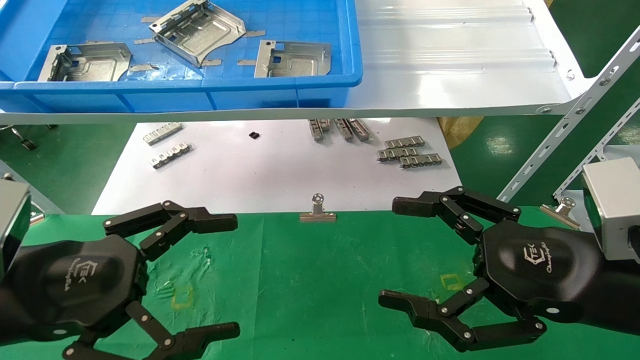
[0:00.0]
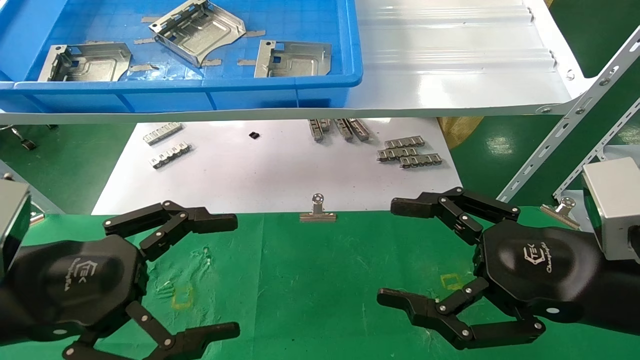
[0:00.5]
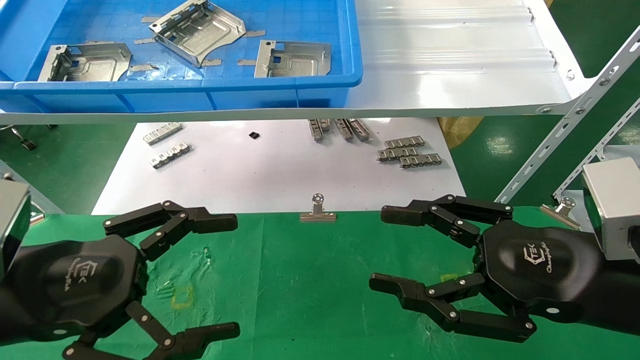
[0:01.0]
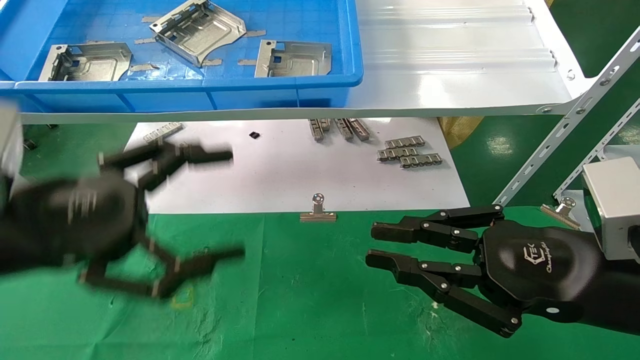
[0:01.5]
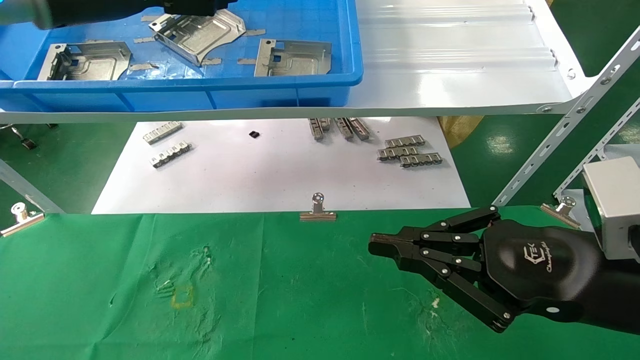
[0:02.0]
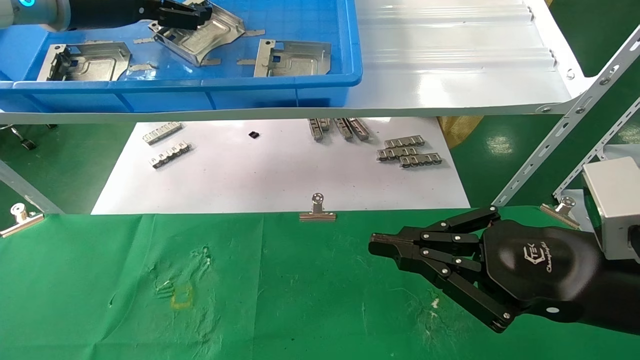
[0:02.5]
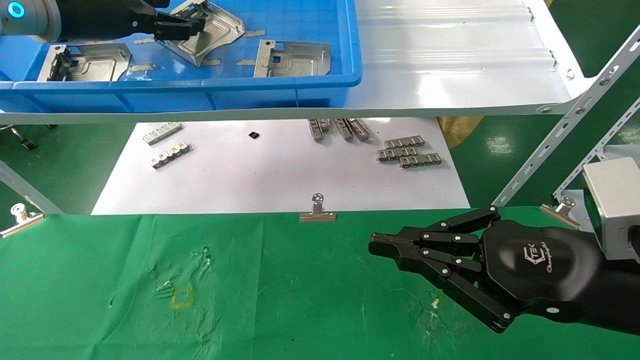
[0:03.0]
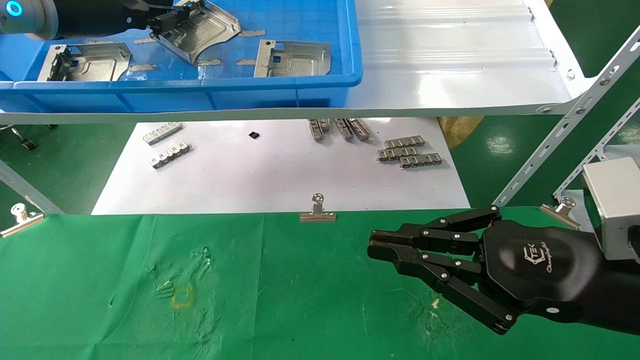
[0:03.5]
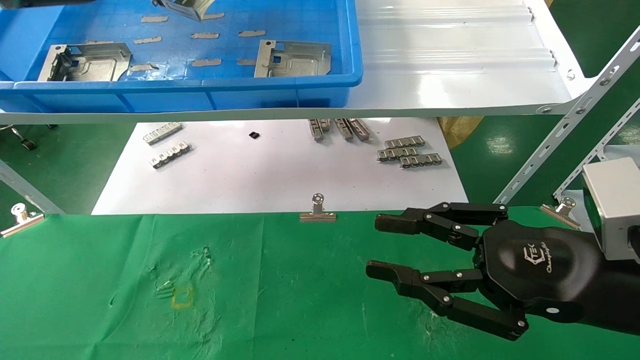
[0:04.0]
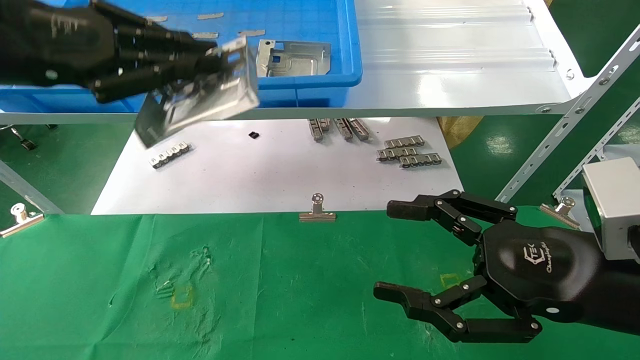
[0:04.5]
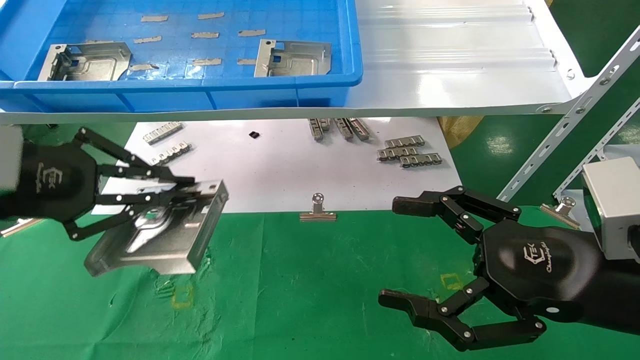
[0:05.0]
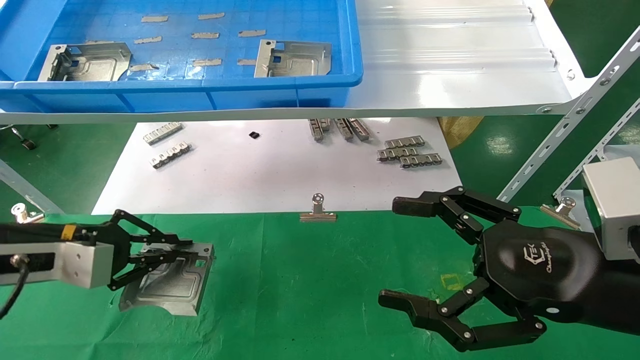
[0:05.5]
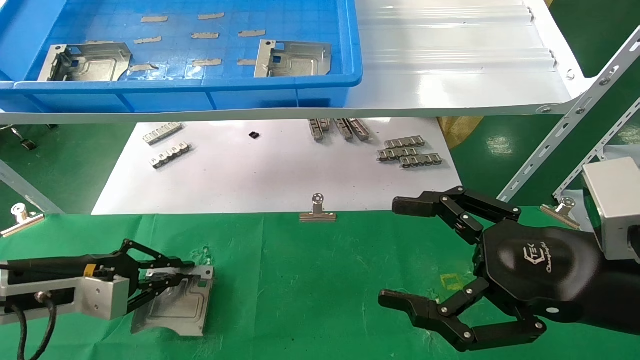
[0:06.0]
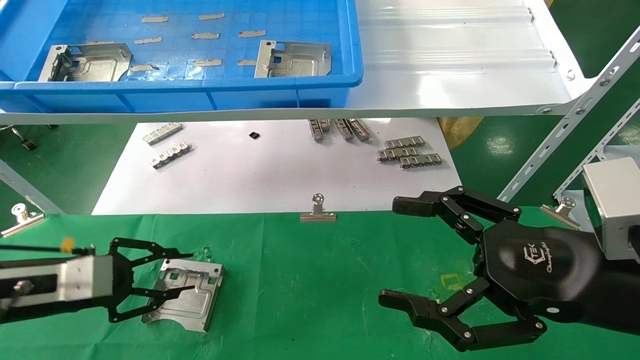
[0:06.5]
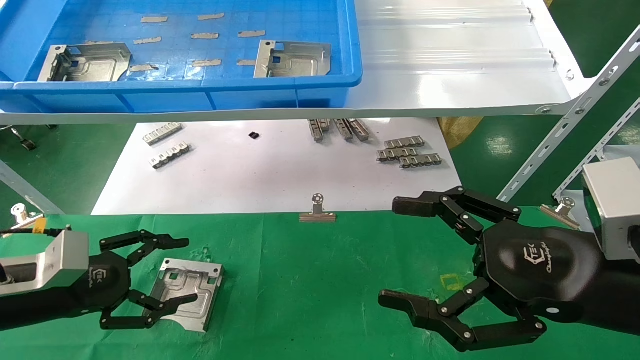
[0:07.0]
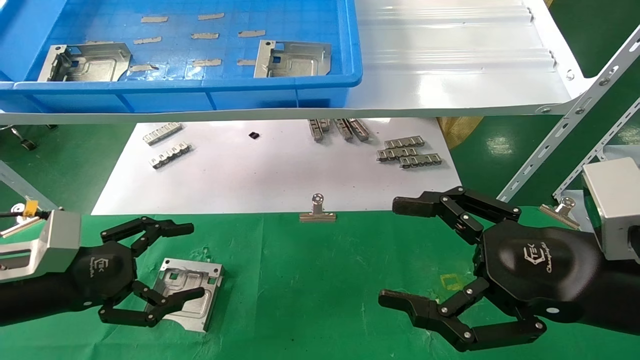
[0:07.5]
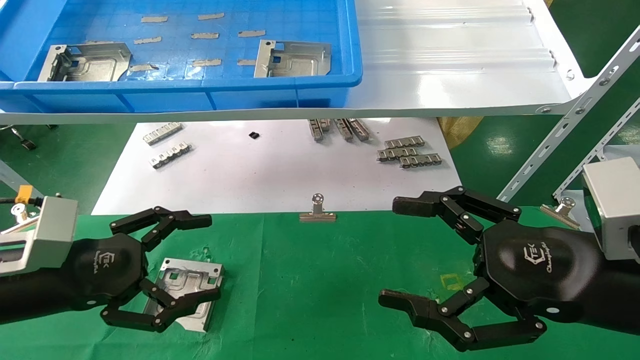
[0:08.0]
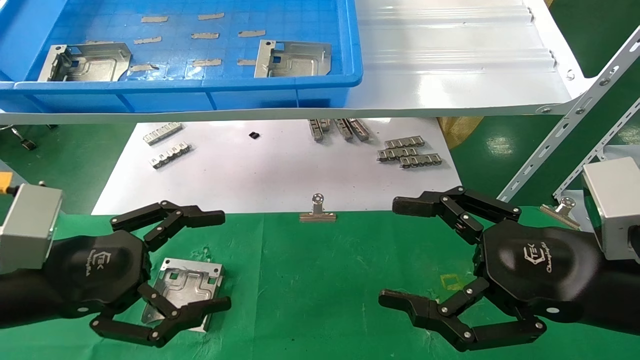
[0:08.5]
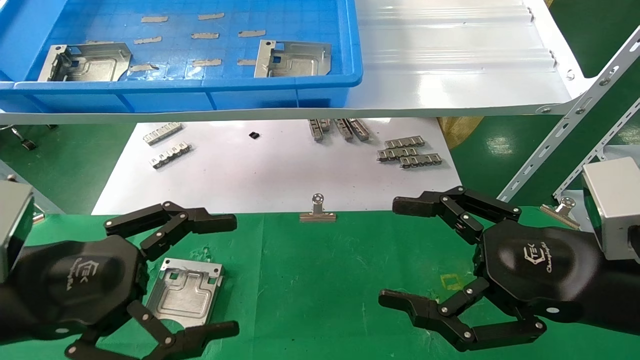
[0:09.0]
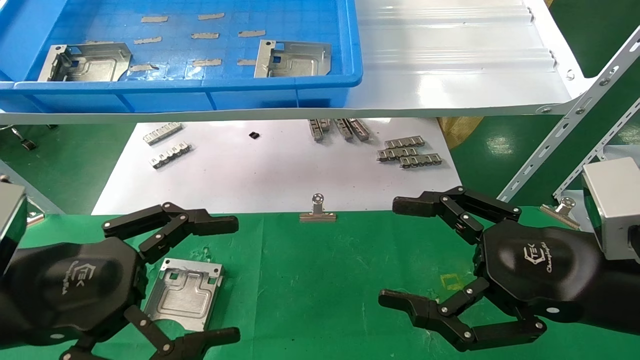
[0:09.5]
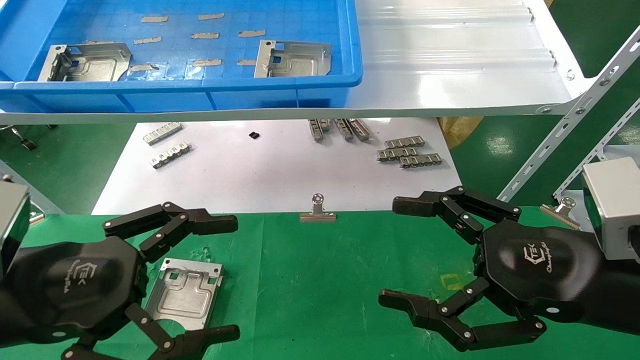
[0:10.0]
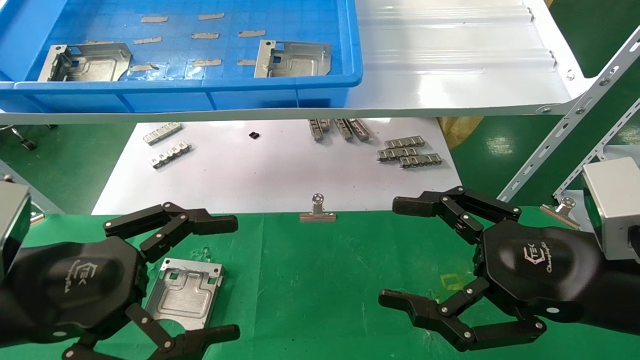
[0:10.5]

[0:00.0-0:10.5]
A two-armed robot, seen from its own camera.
Task of the whole recording: use the mechanical arm to pick up the parts and place them on the table.
Step, 0:02.0 to 0:03.5: Pick up the hard drive bracket from the feeding area.
Step, 0:04.0 to 0:06.0: Place the hard drive bracket into the box.
0:00.0 to 0:02.0: The right gripper closes up; the left gripper shifts roughly 30 cm upward and forward.
0:02.0 to 0:04.0: The left gripper closes up.
0:04.0 to 0:06.5: The left gripper goes some 35 cm downward, while the right gripper opens up.
0:06.5 to 0:08.5: The left gripper is displaced backward, to the right and upward by roughly 15 cm, and opens.
0:08.5 to 0:10.5: The grippers stay close to where they were, moving slightly.

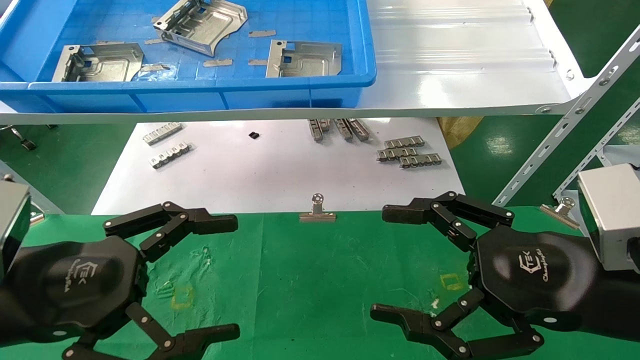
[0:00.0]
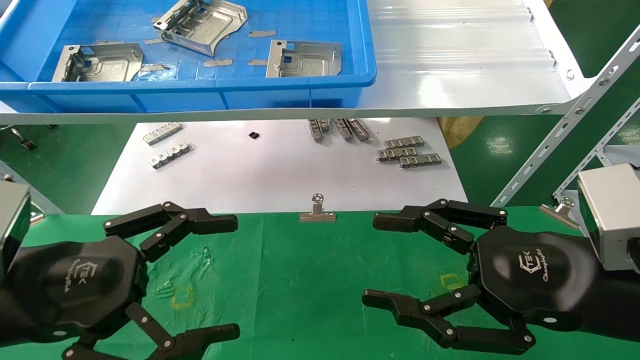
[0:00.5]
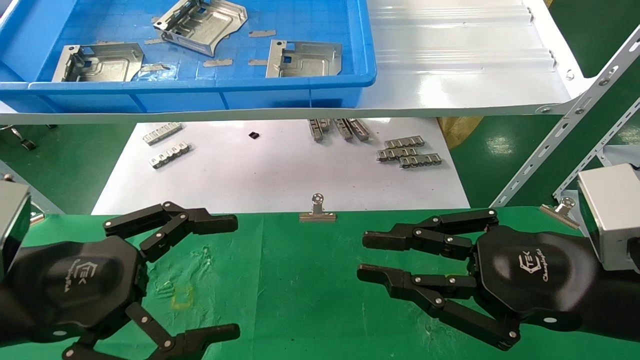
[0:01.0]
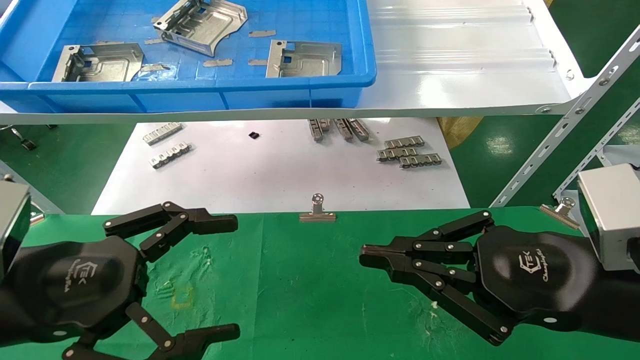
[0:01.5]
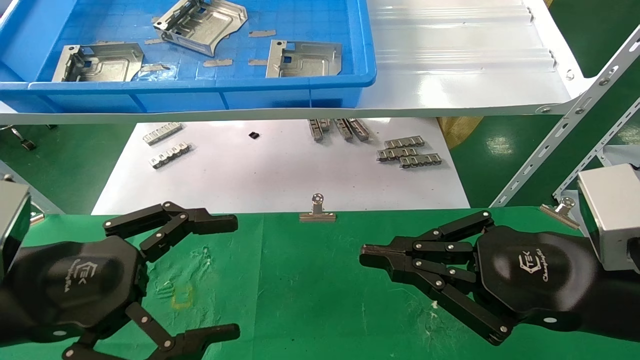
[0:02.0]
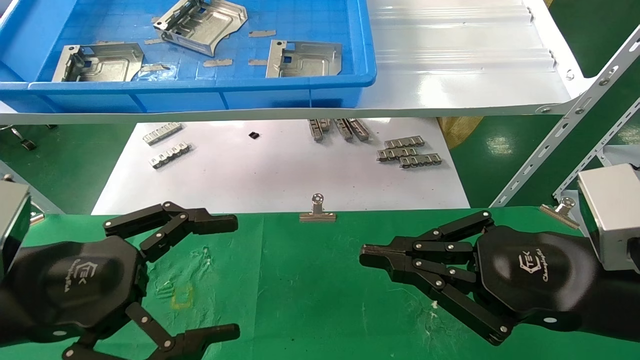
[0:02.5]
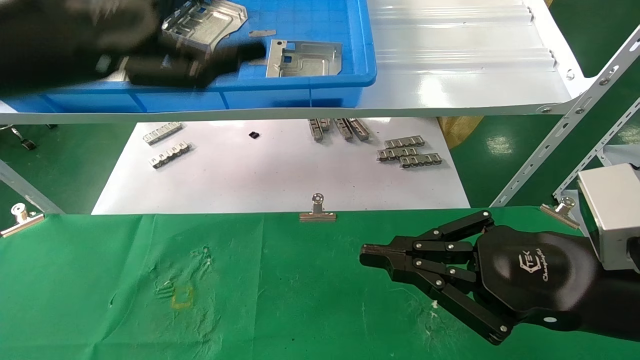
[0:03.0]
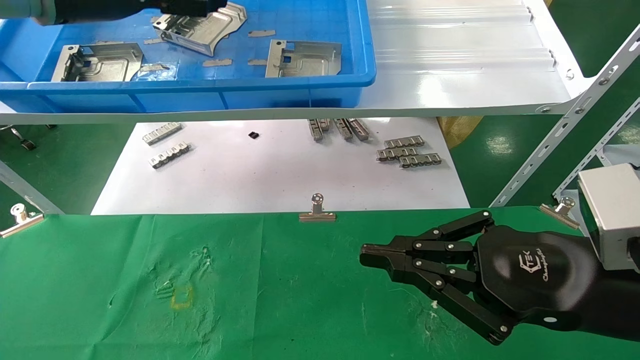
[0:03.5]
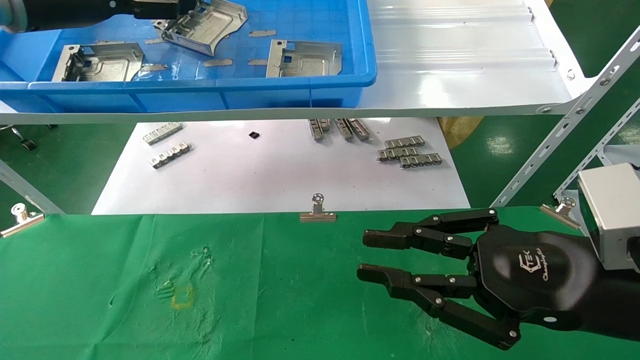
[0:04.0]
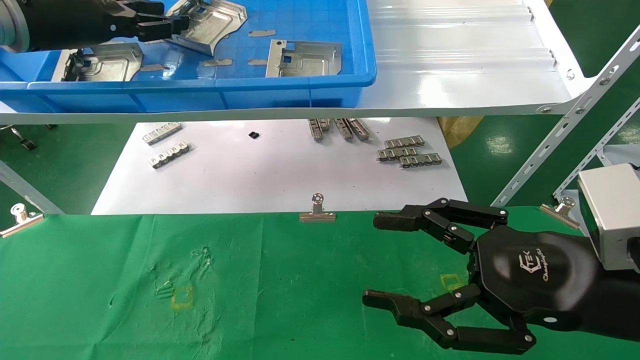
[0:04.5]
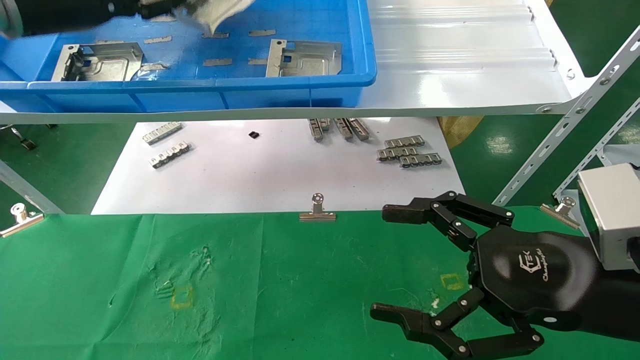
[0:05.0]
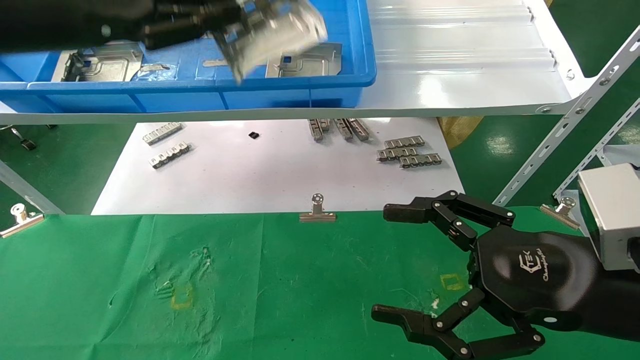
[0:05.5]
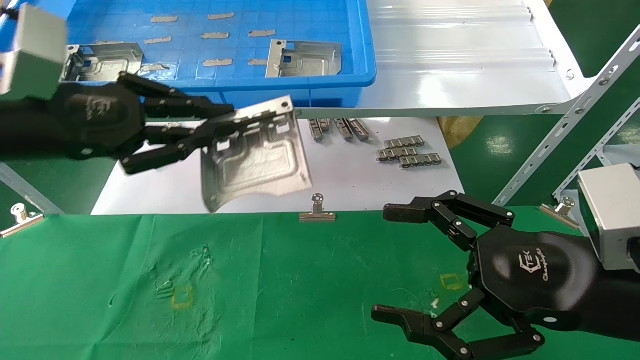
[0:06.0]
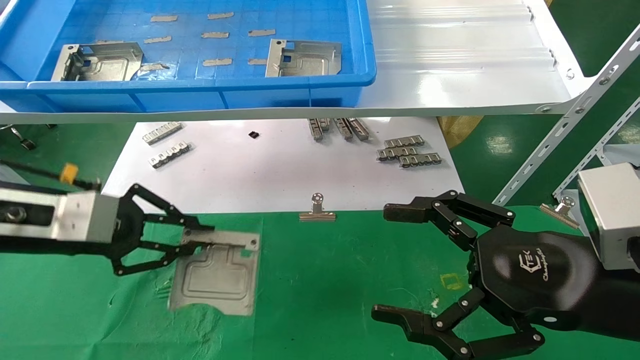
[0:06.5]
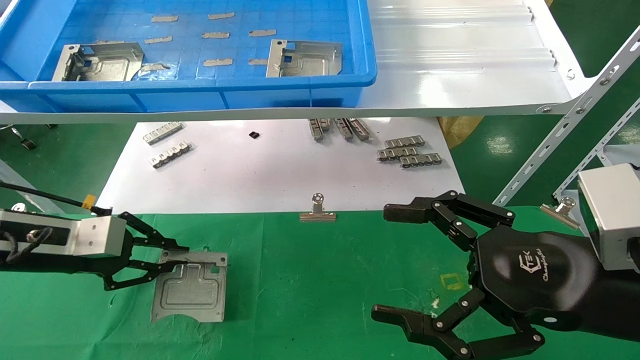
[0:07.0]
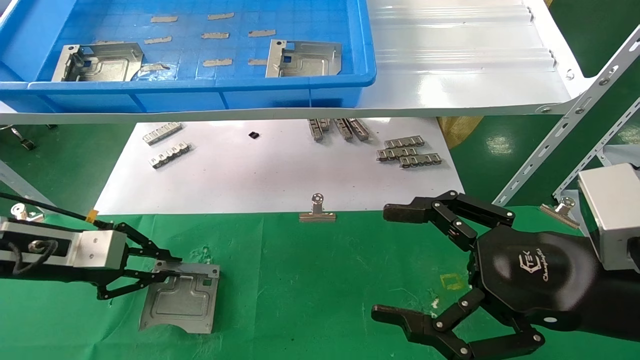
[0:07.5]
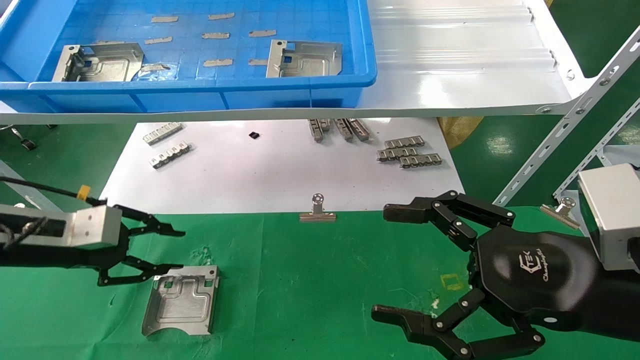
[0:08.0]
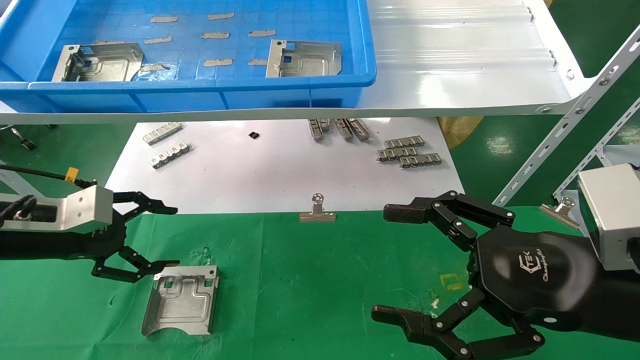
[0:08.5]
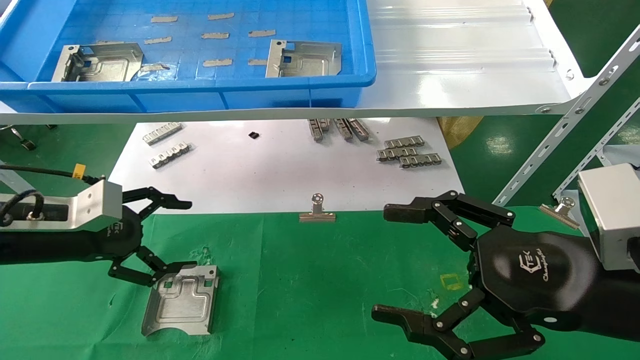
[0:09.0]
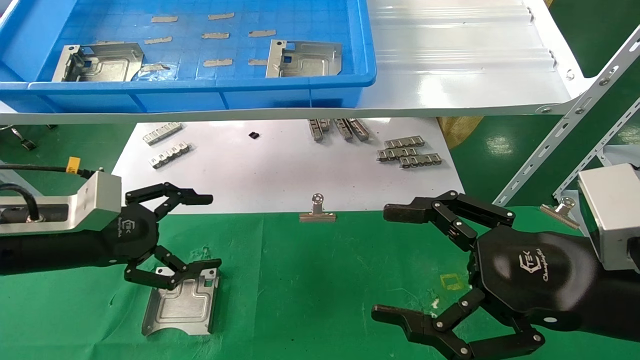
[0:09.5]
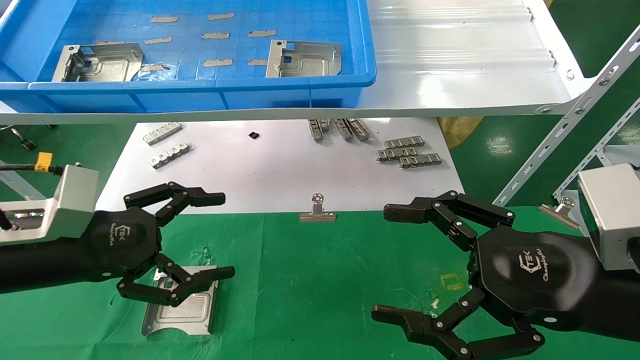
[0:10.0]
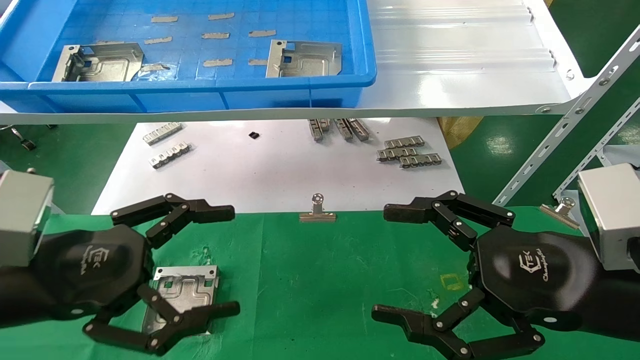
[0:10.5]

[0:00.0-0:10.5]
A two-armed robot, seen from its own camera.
Task of the whole recording: use the mechanical arm to pick up the parts and place them on the table.
Step, 0:03.0 to 0:05.0: Pick up the hard drive bracket from the feeding area.
Step, 0:05.5 to 0:07.5: Place the hard drive bracket into the box.
0:00.0 to 0:02.0: The right gripper closes up.
0:02.0 to 0:04.0: The left gripper goes approximately 30 cm upward and forward.
0:04.0 to 0:06.5: The left gripper moves downward and backward, roughly 20 cm, and closes up. The right gripper opens its fingers.
0:06.5 to 0:08.5: The left gripper changes place by approximately 5 cm, and opens its fingers.
0:08.5 to 0:10.5: The left gripper moves backward and to the right, approximately 15 cm.
